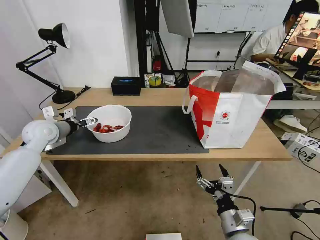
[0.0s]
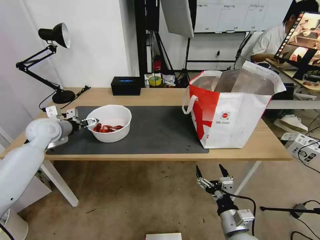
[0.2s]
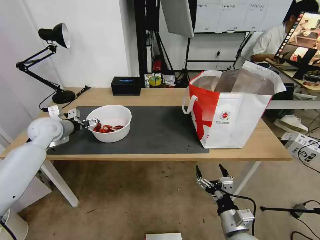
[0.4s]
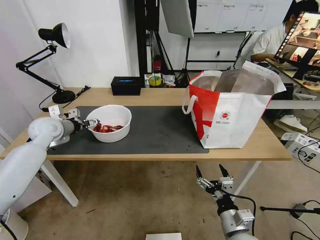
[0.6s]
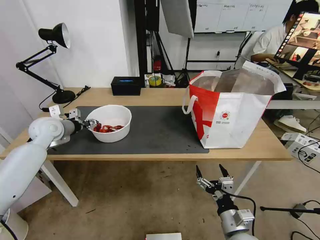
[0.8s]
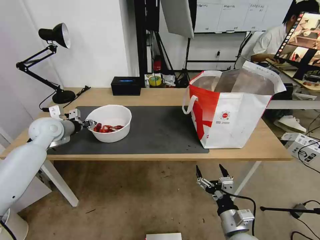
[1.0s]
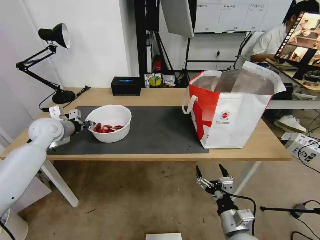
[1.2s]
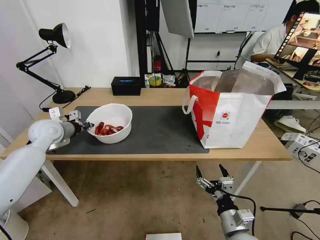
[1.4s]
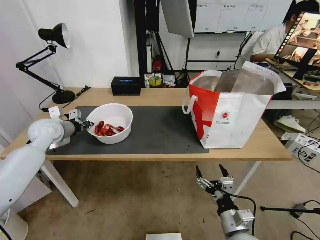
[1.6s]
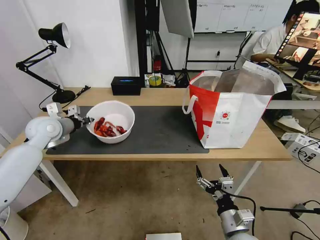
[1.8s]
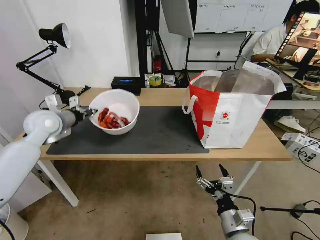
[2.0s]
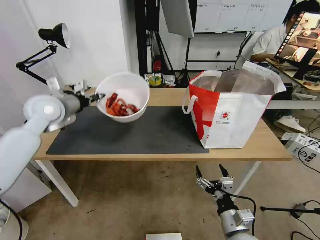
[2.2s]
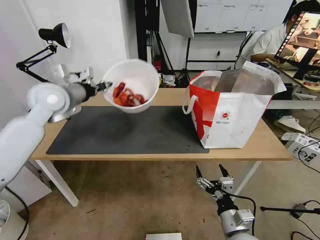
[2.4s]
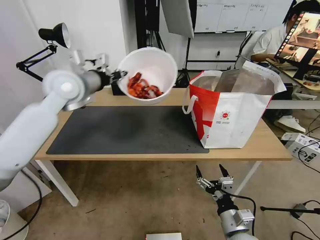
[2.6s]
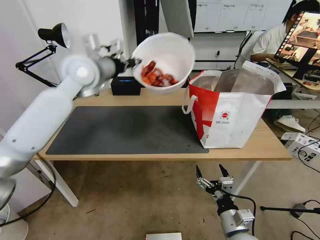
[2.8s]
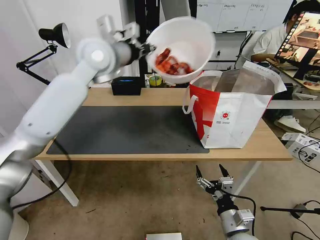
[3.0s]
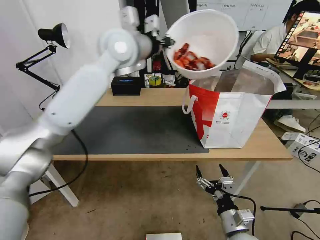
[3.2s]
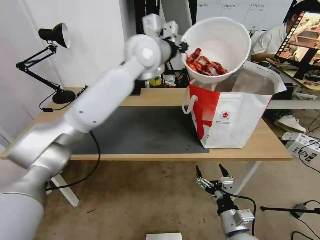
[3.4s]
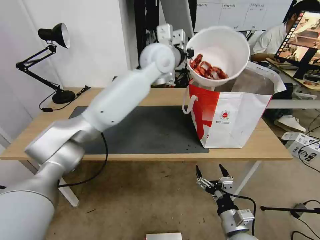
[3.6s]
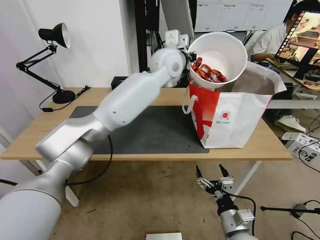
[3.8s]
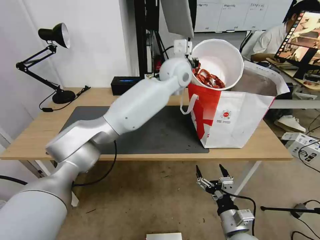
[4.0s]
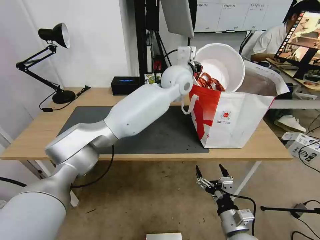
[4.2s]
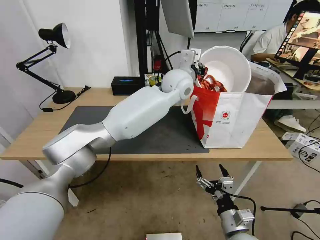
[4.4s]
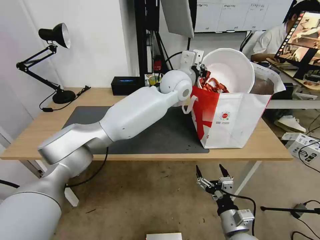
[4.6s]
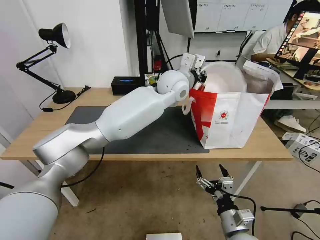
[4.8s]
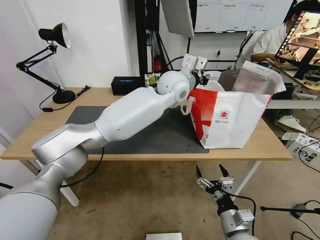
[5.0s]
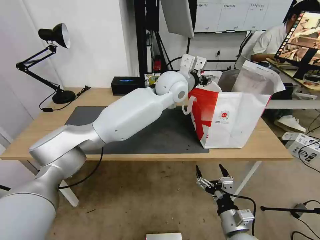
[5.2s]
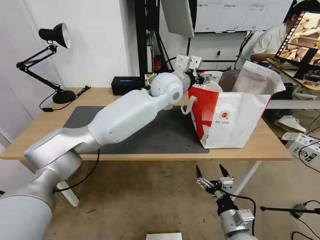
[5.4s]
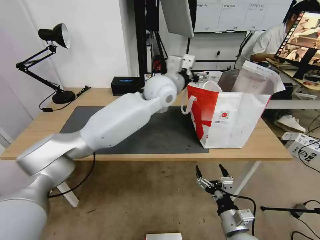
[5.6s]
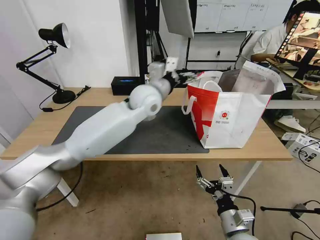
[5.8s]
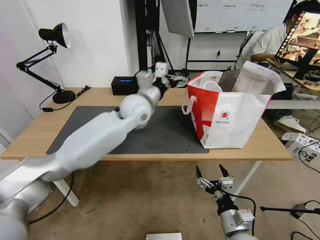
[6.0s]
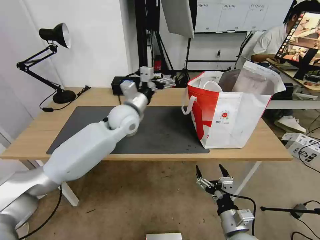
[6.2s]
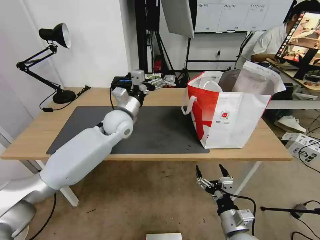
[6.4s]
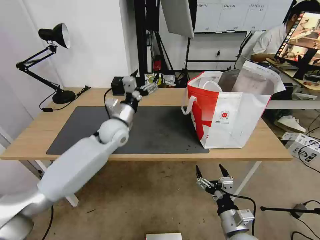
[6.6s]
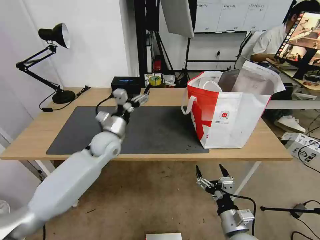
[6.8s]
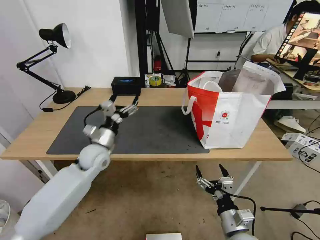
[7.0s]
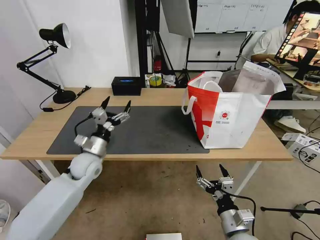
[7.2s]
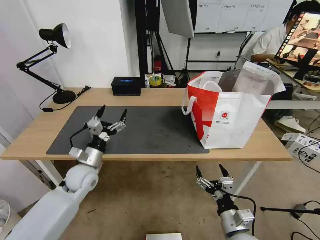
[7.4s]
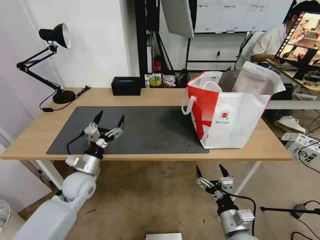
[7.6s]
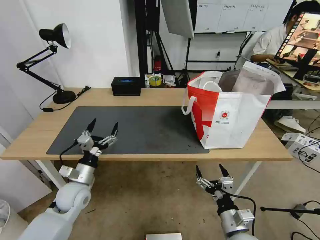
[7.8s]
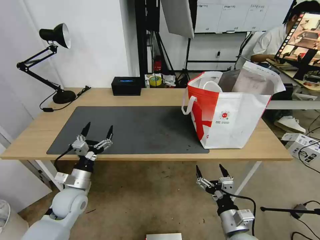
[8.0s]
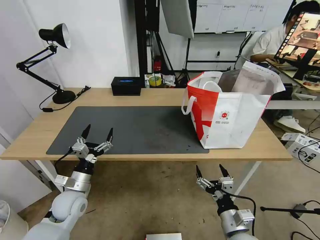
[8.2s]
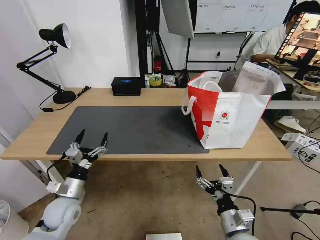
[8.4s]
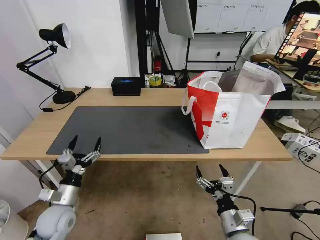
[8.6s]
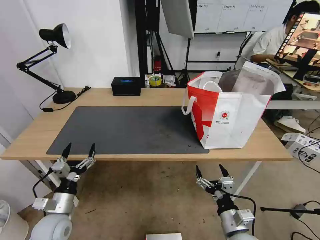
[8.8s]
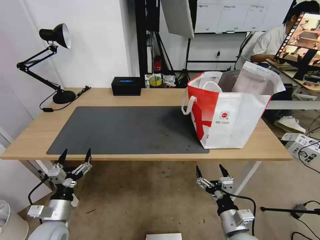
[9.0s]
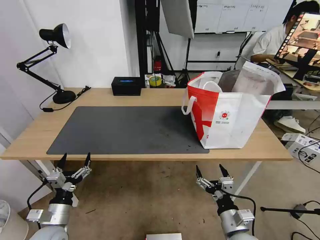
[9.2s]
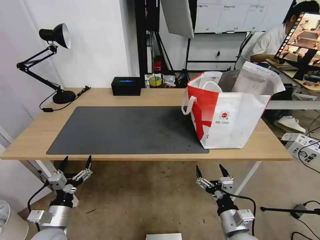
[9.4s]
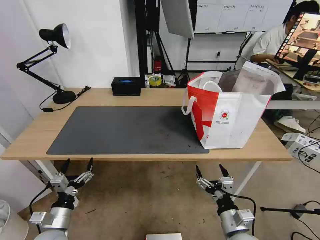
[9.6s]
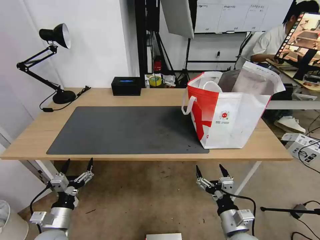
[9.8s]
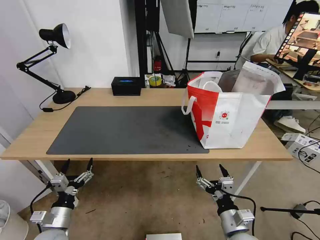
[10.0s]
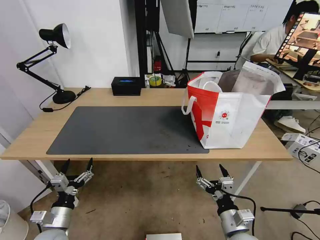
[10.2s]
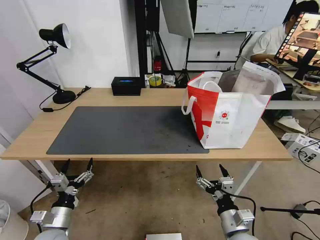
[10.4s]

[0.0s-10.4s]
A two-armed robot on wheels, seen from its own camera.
Task of the whole recording: Pick up the trash from the table and place it into the takeout bag.
0.0s to 1.4s: The left gripper closes.
1.4s to 3.0s: The left gripper is displaced upward and to the right by approximately 35 cm.
3.0s to 4.4s: The left gripper heads to the right and downward, covering roughly 25 cm.
4.4s to 6.0s: The left gripper goes roughly 15 cm to the left and downward, and opens.
6.0s to 7.4s: The left gripper goes approximately 30 cm downward, to the left and backward.
7.4s to 9.0s: The left gripper travels backward, downward and to the left by some 20 cm.
9.0s to 10.4s: The grippers make only small movements.
